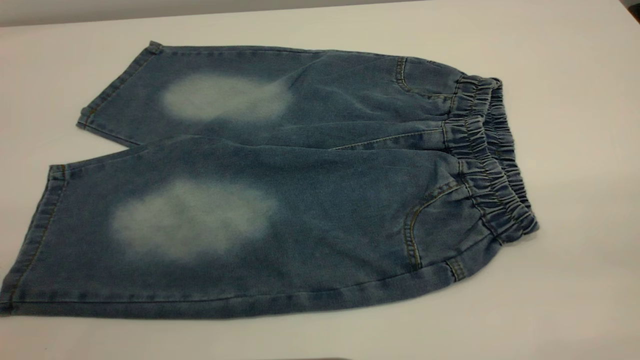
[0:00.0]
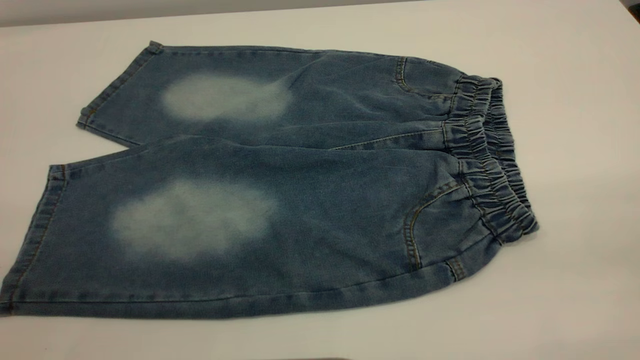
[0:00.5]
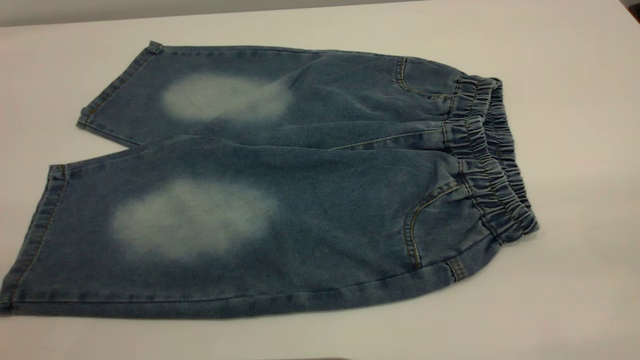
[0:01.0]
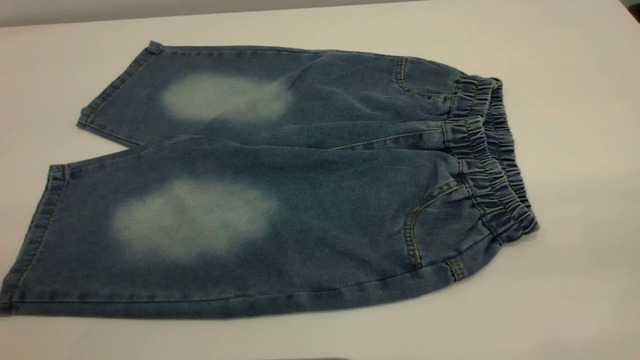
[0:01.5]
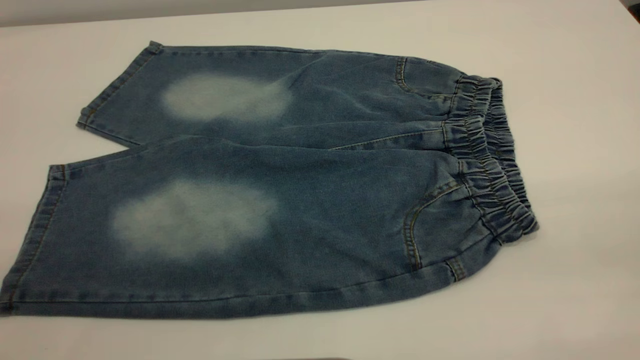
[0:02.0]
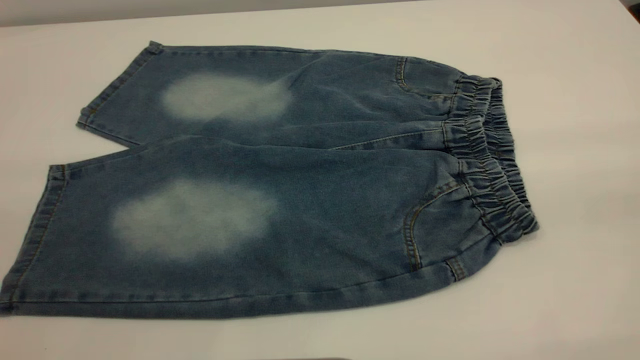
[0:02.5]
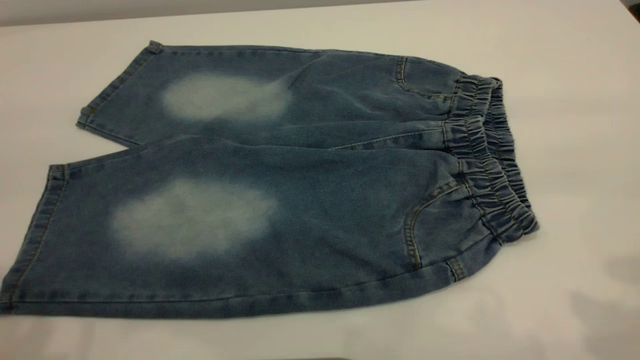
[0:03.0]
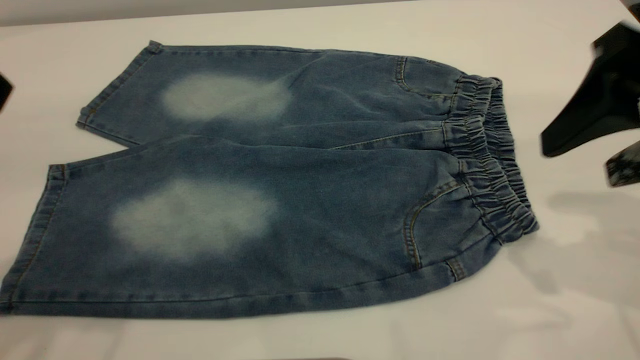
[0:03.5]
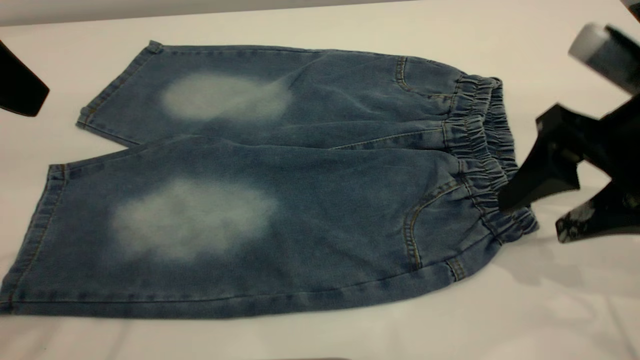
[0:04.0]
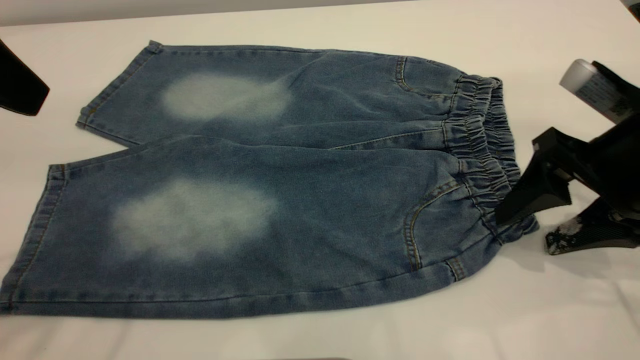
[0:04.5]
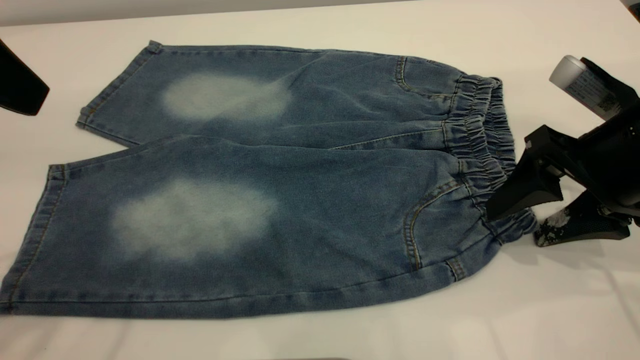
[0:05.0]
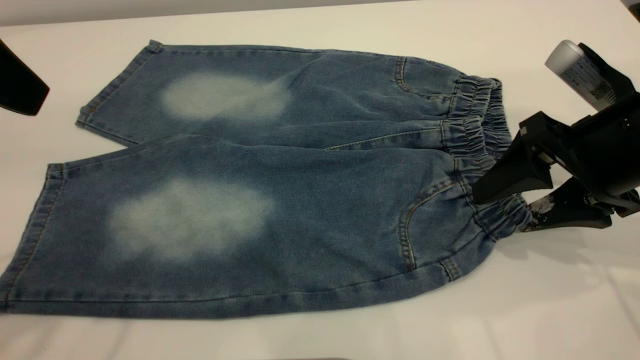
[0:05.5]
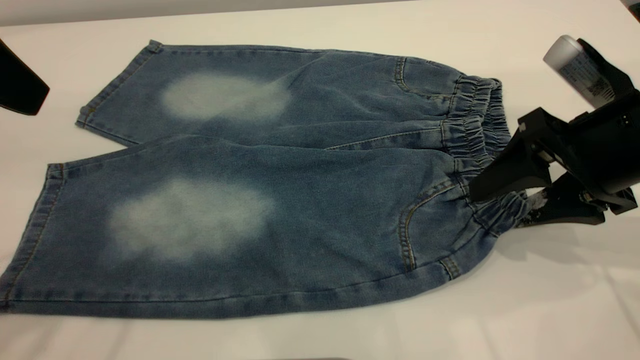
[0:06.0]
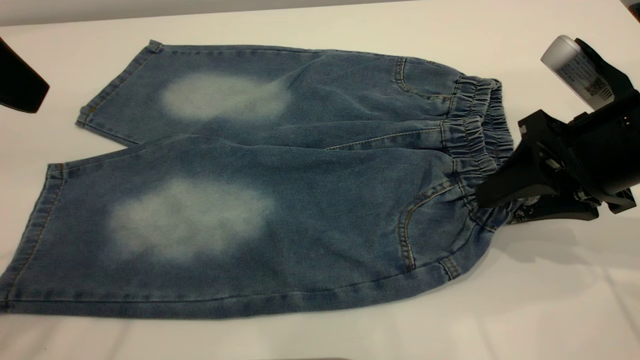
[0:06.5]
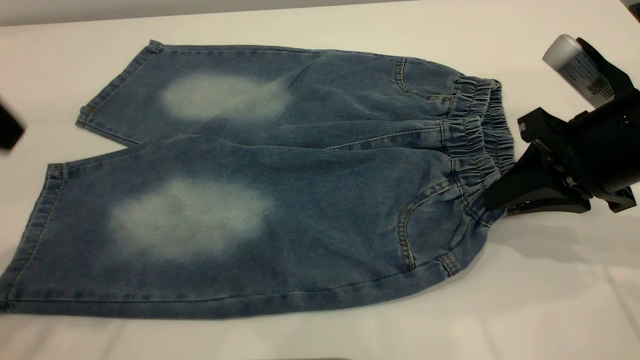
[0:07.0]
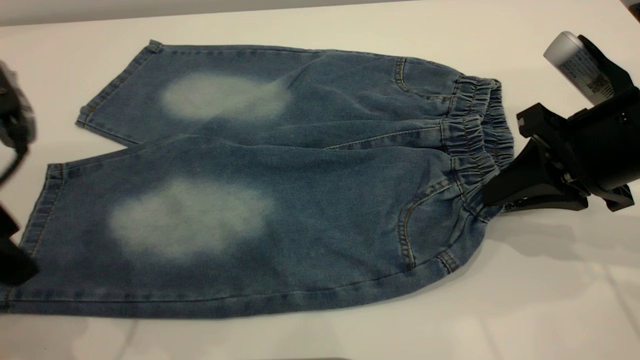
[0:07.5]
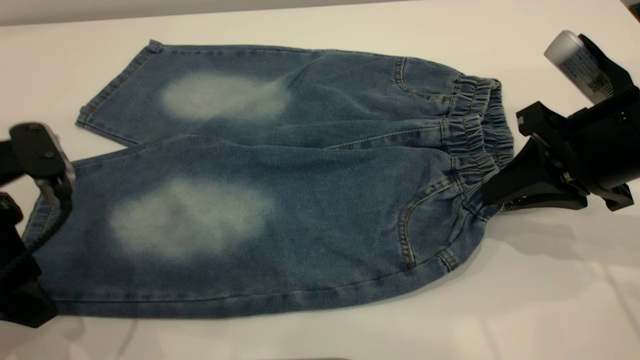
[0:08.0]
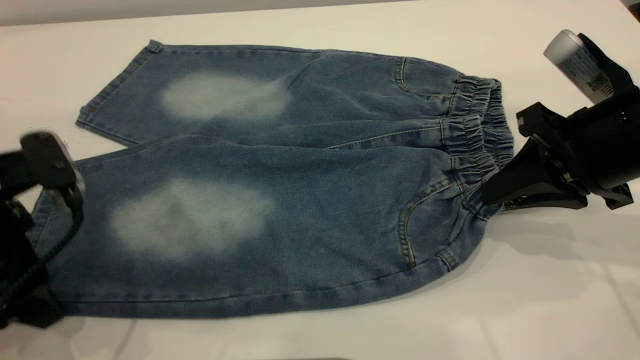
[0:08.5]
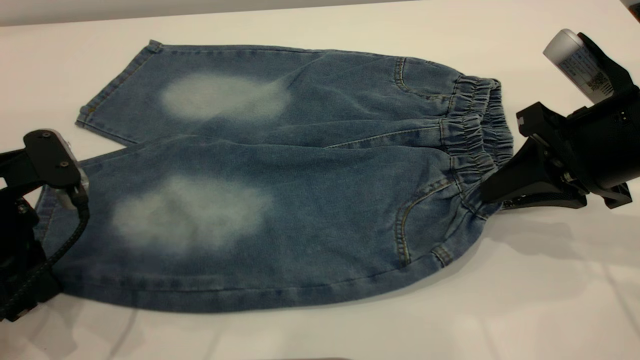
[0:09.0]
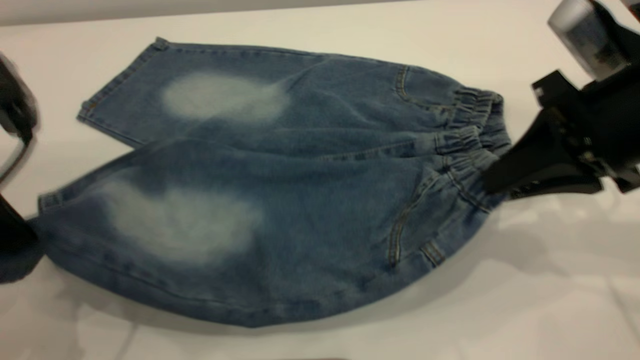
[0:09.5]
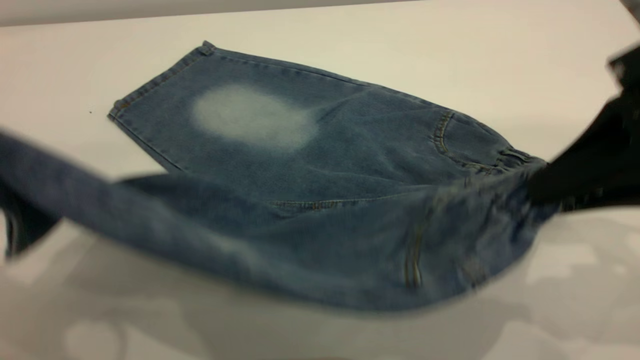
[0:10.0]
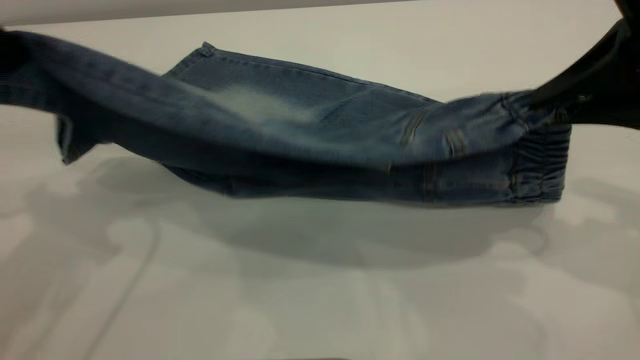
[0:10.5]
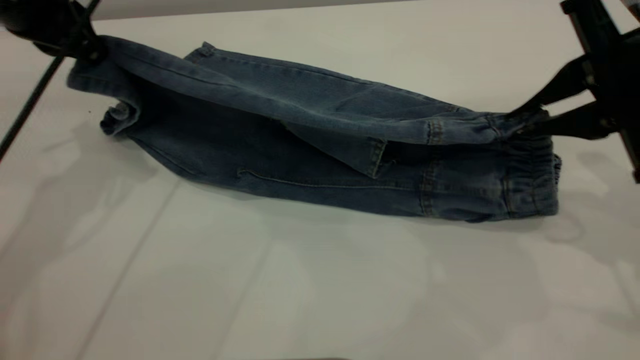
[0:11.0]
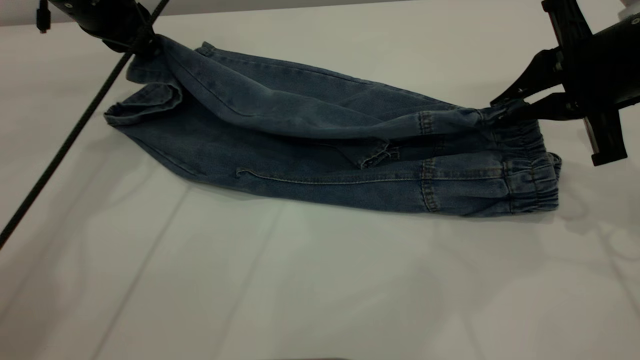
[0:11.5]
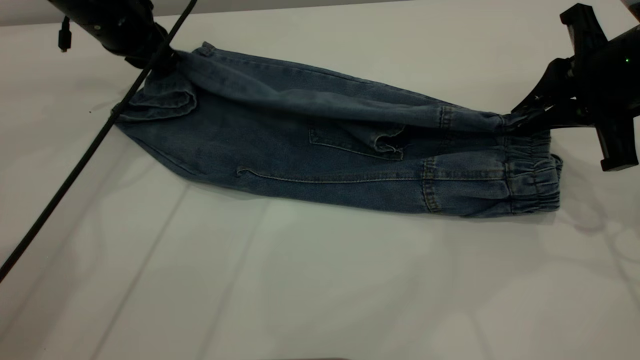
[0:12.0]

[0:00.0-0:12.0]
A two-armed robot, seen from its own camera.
0:00.0 to 0:02.0: Neither gripper changes place.
0:02.0 to 0:04.0: The left gripper is displaced forward by approximately 25 cm. Meanwhile the right gripper goes about 30 cm forward and downward.
0:04.0 to 0:06.0: The grippers move only a little.
0:06.0 to 0:08.0: The left gripper is displaced downward by roughly 15 cm. The right gripper closes.
0:08.0 to 0:10.0: The left gripper shifts roughly 15 cm upward, and closes. The right gripper moves upward and backward, about 10 cm.
0:10.0 to 0:12.0: The right gripper shifts some 15 cm forward and downward; the left gripper travels forward and downward by some 30 cm.

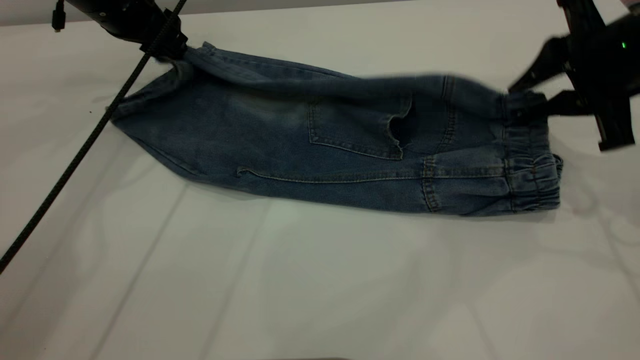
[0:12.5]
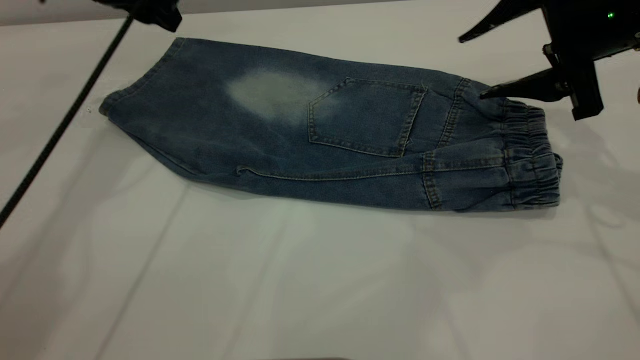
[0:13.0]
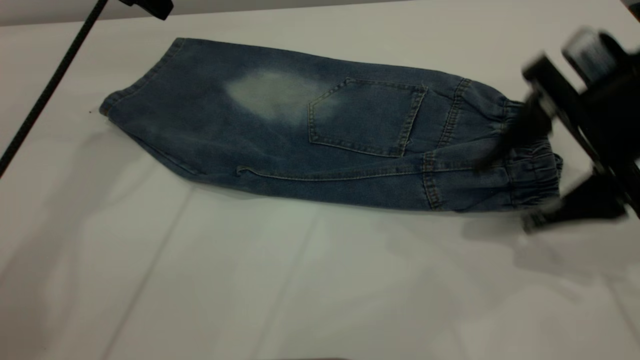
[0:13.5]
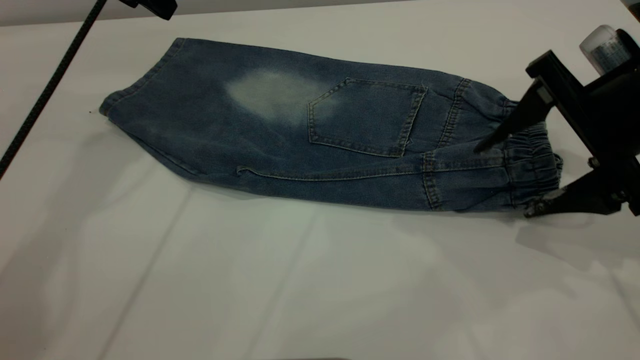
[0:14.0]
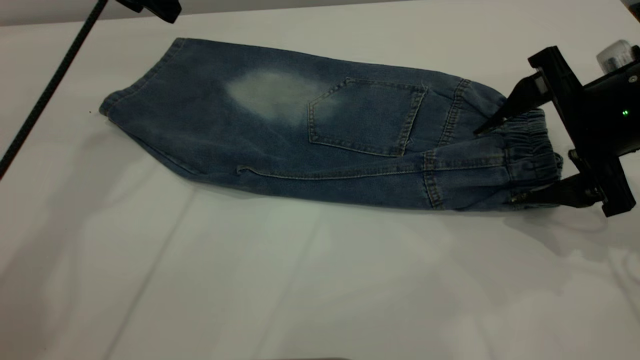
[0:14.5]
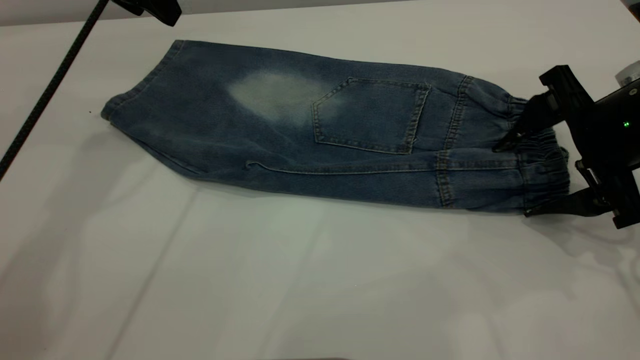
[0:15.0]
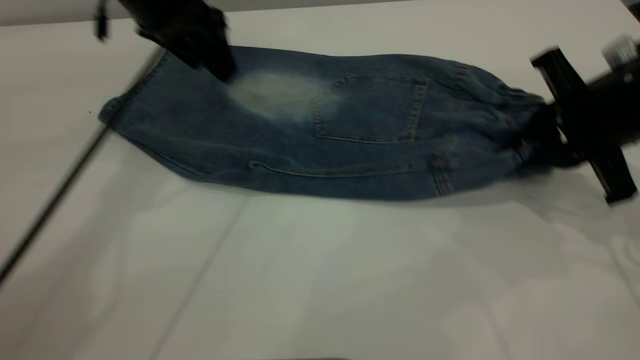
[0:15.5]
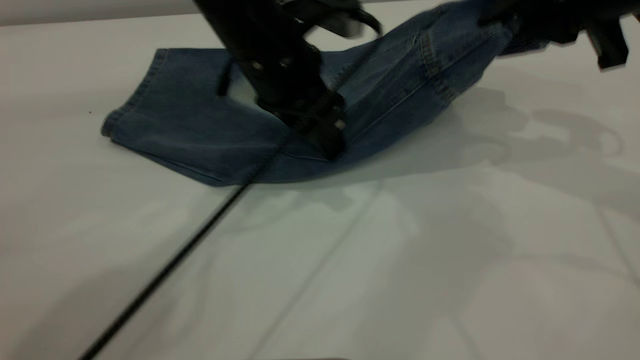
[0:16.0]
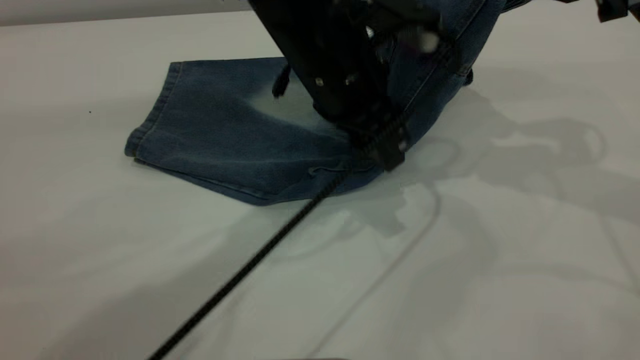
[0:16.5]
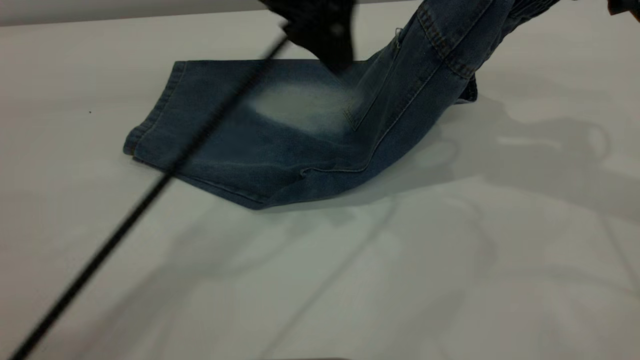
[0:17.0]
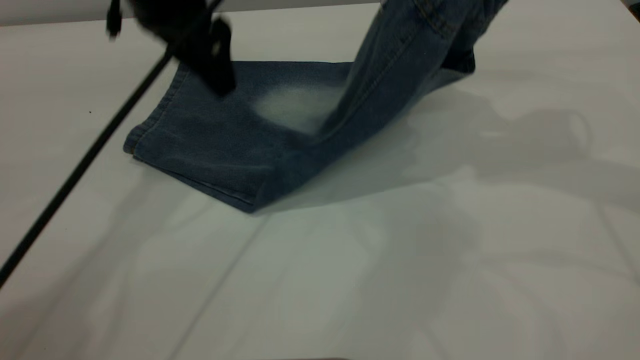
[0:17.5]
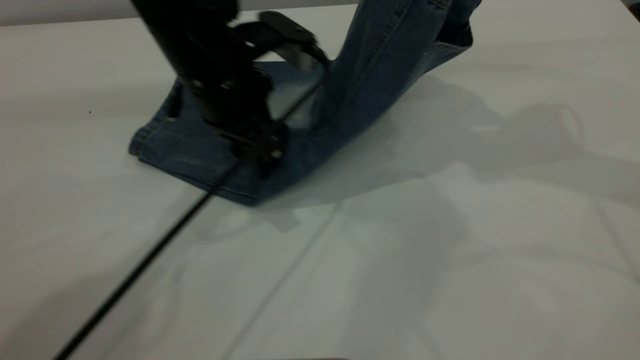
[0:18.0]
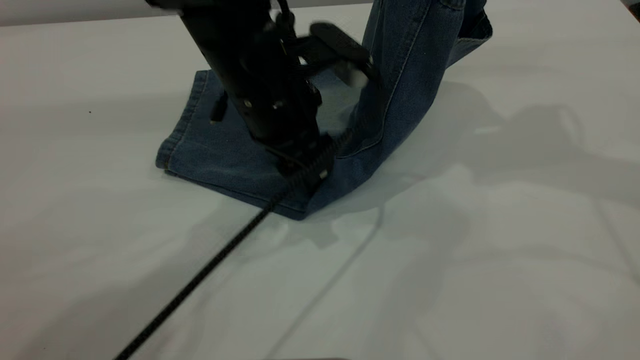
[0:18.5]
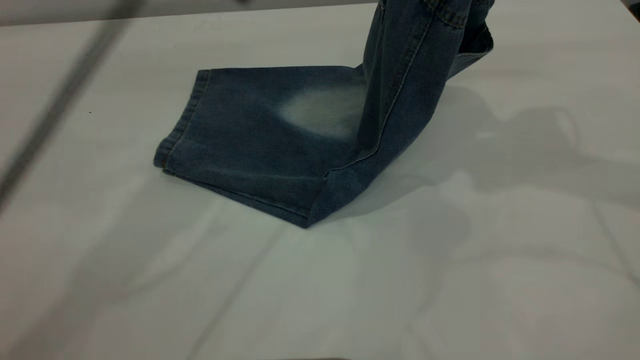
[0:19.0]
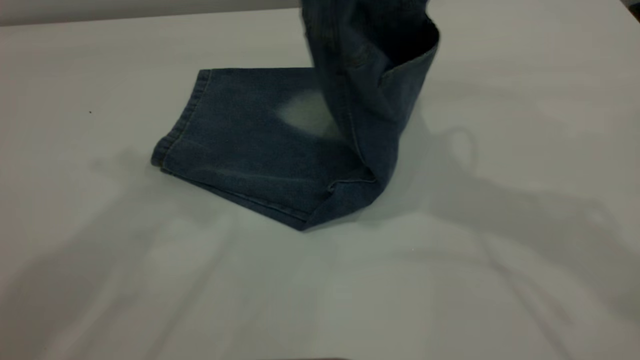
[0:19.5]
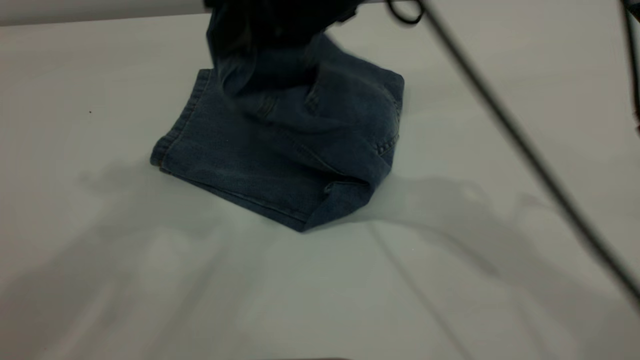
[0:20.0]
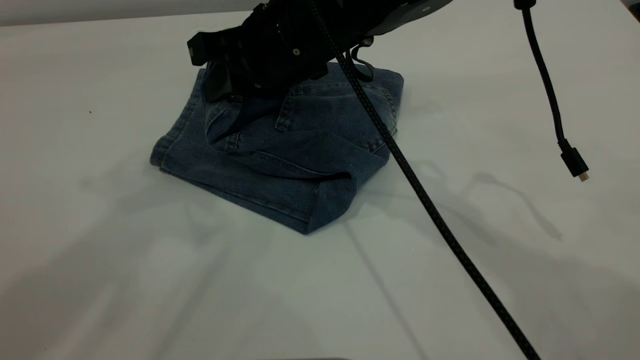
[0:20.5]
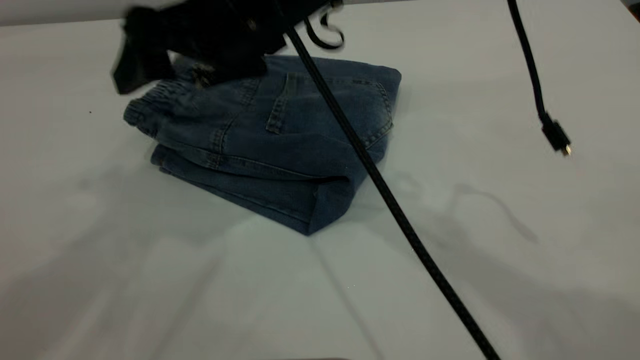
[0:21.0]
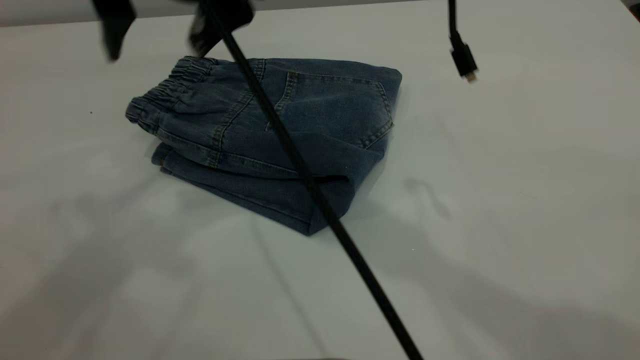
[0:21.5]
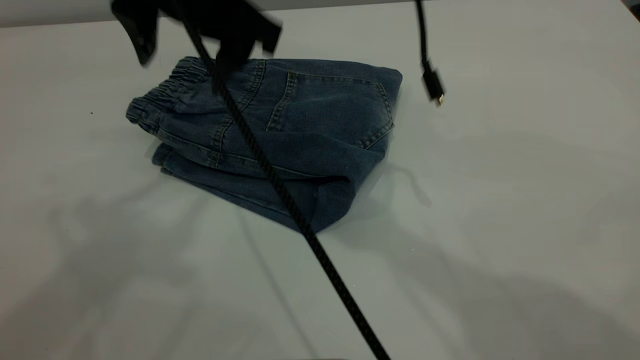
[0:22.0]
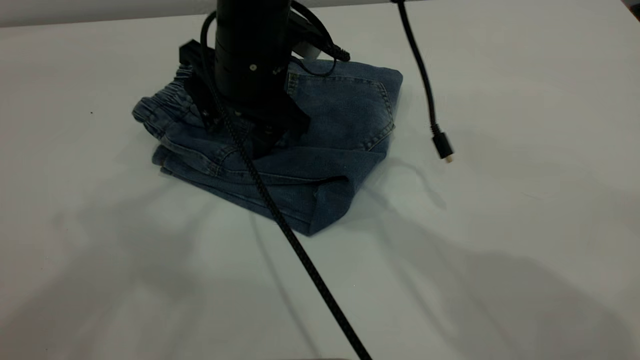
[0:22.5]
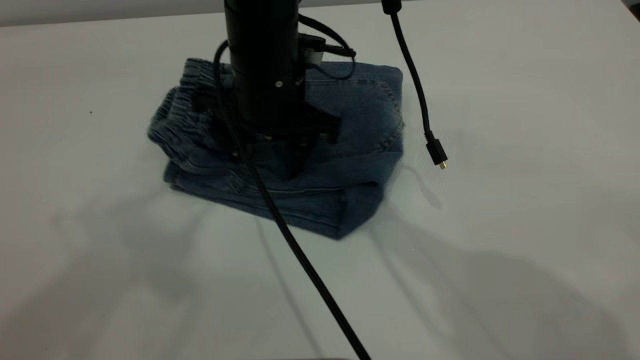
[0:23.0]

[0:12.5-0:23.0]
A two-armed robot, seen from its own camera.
Step, 0:14.0 to 0:21.0: Fold your pants from right to left.
0:12.5 to 0:14.5: The right gripper shifts by about 5 cm, and opens up; the left gripper shifts roughly 5 cm upward.
0:14.5 to 0:16.5: The right gripper shifts roughly 10 cm upward, and closes its fingers; the left gripper goes roughly 25 cm to the right and backward.
0:16.5 to 0:19.0: The left gripper moves up and down over roughly 20 cm, changing direction 2 times.
0:19.0 to 0:21.0: The right gripper heads to the left, covering roughly 25 cm, and opens its fingers. Meanwhile the left gripper moves upward, backward and to the left, about 20 cm.
0:21.0 to 0:23.0: The left gripper ends up roughly 5 cm from where it was, while the right gripper heads downward, covering approximately 10 cm.
